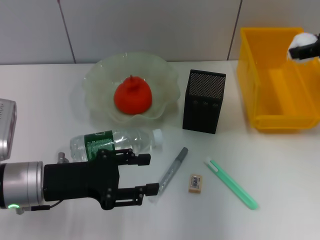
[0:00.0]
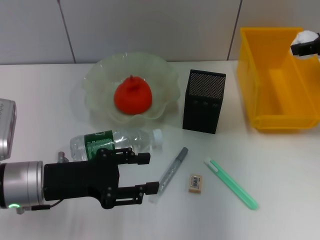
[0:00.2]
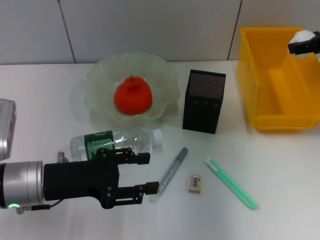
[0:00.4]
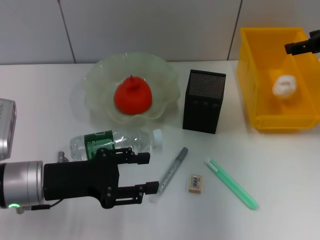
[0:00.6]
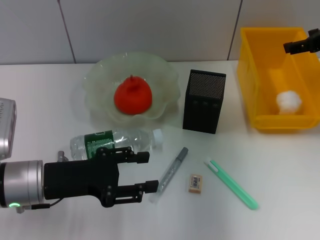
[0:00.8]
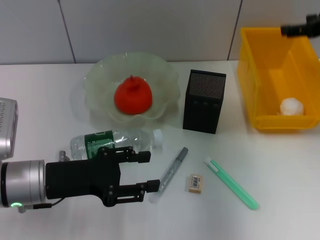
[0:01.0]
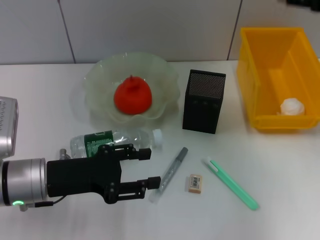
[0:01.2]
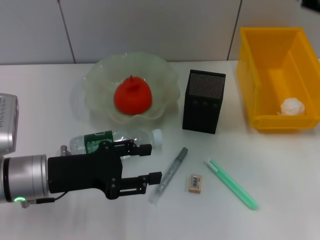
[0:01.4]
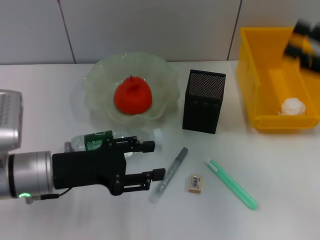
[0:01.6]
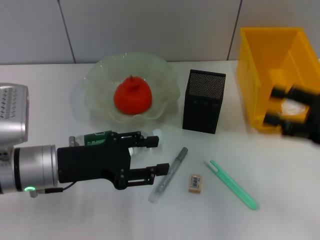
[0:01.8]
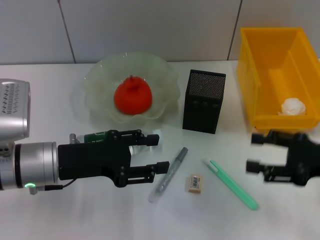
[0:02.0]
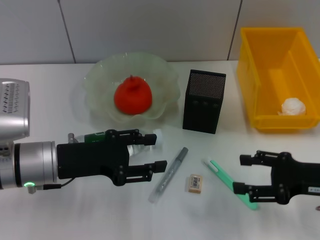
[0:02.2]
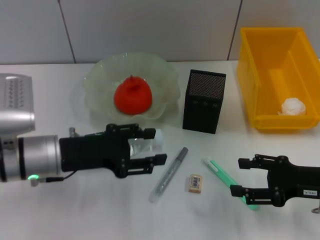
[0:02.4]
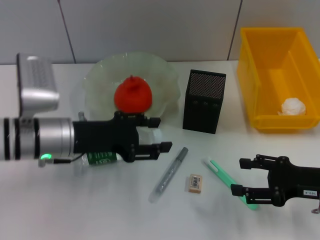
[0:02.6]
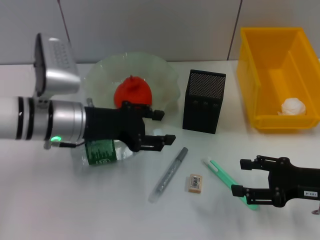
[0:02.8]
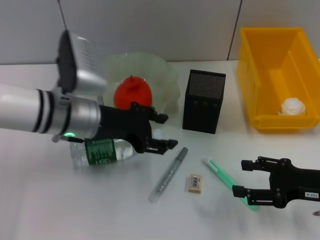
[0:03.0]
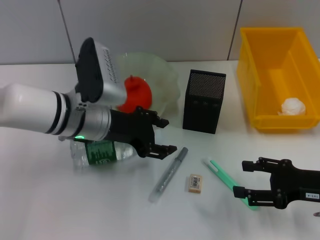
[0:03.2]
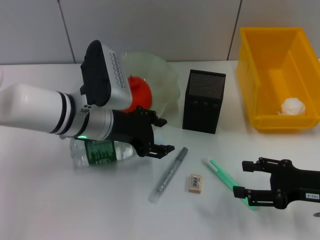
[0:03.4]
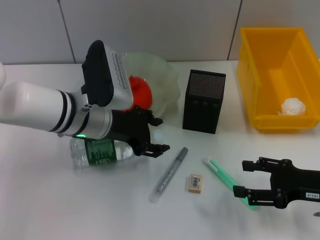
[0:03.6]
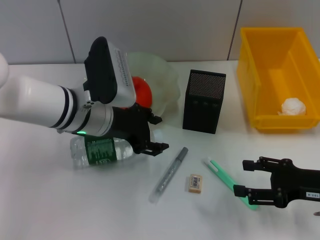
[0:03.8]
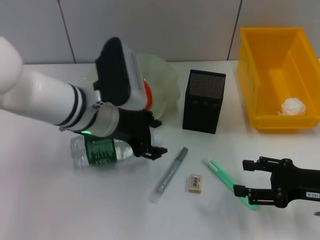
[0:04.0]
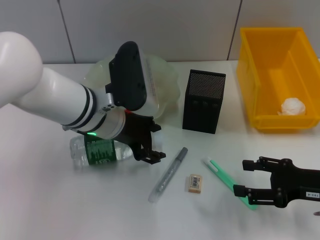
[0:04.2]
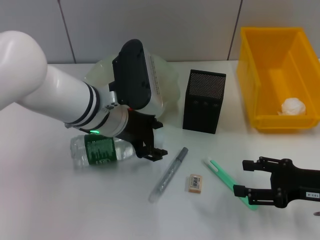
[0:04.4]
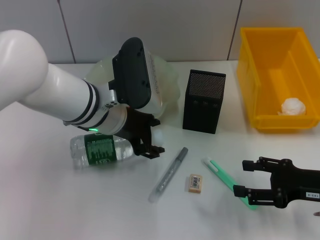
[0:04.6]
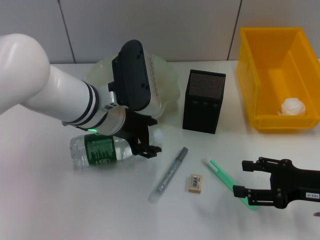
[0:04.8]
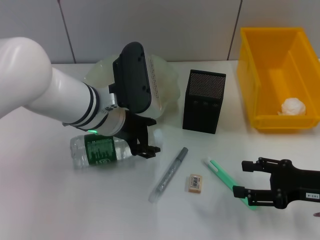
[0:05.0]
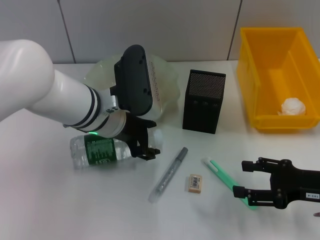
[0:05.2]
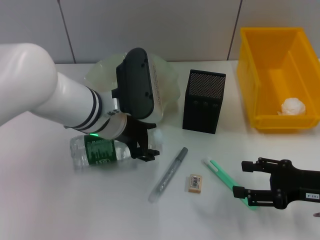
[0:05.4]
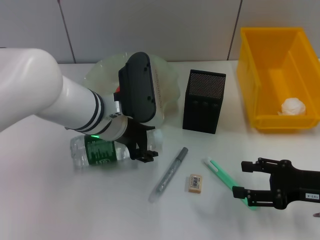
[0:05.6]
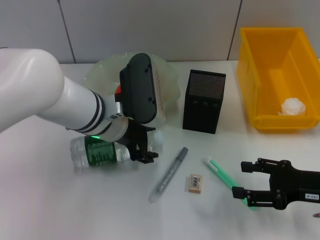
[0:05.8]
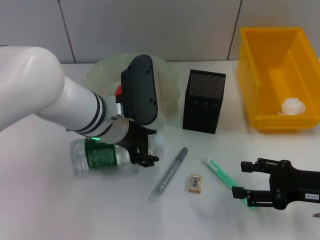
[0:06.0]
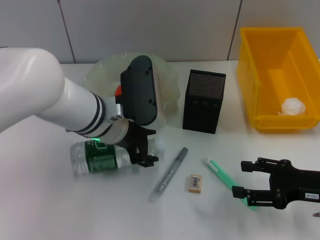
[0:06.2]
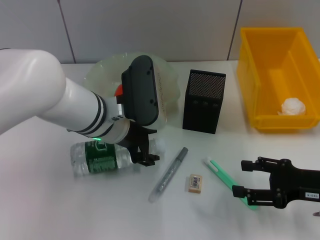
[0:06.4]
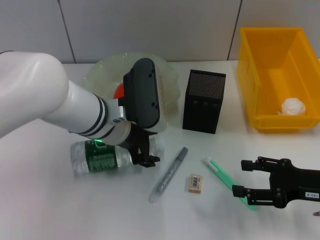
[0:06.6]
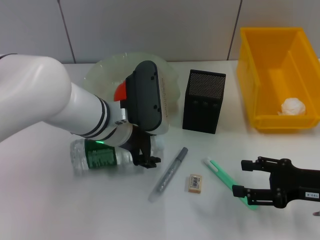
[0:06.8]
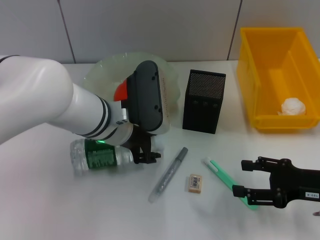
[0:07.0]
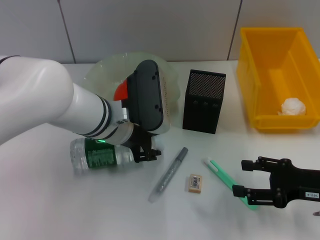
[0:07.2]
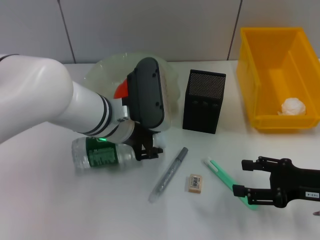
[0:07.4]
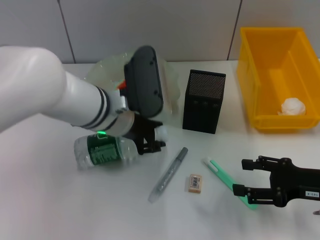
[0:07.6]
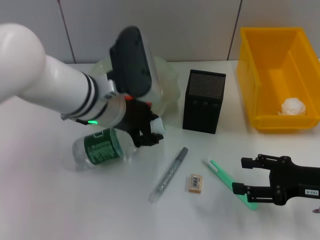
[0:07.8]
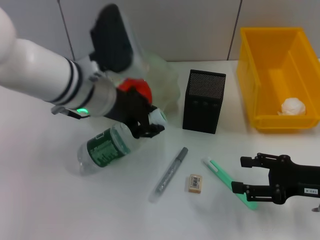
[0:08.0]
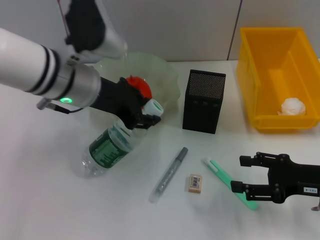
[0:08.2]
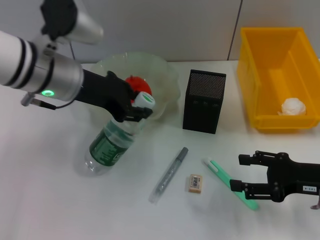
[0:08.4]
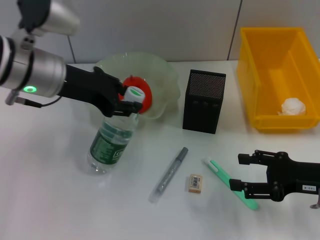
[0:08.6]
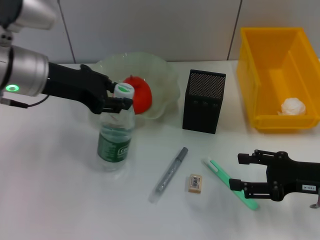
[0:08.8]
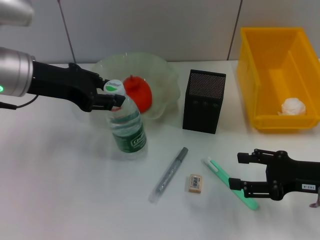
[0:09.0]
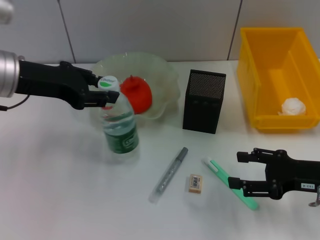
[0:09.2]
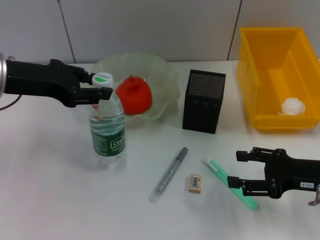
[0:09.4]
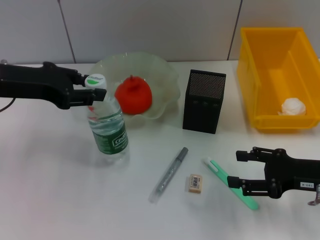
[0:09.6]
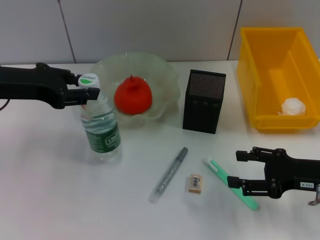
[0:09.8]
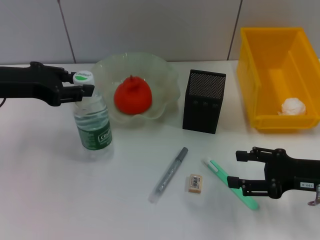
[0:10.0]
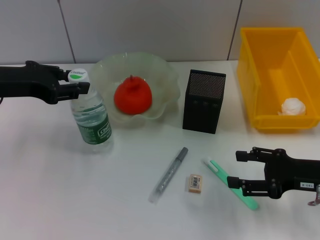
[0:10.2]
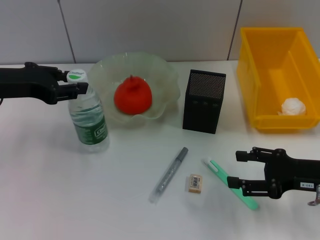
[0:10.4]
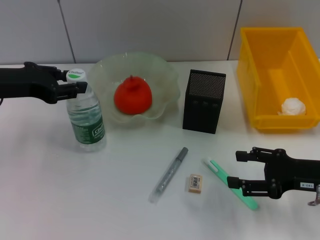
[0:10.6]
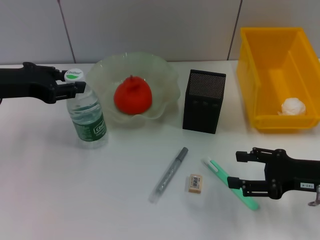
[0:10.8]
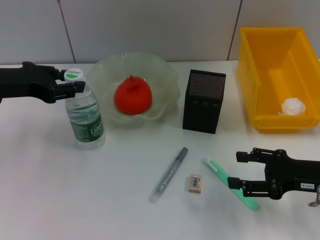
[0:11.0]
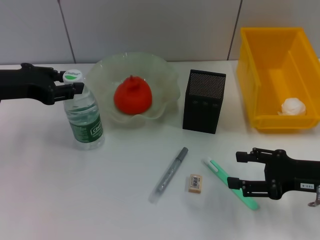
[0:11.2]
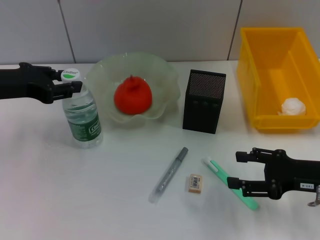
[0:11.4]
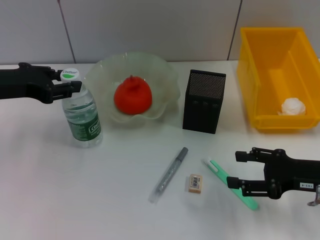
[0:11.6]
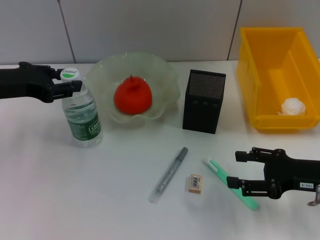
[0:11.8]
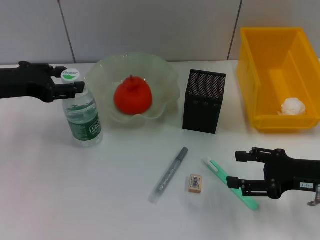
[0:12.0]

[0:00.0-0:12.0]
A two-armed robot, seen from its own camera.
Step, 0:01.0 to 0:07.0: Grab the water bottle with the left hand.
0:00.0 to 0:01.6: The right gripper shifts roughly 15 cm backward and downward.
0:01.6 to 0:03.0: The left gripper is displaced forward and to the right by some 10 cm. Meanwhile the right gripper goes about 10 cm downward.
0:03.0 to 0:04.4: The left gripper shifts by roughly 5 cm.
0:04.4 to 0:06.0: The grippers move only a little.
0:06.0 to 0:07.6: Both grippers stay about where they are.
0:07.6 to 0:09.0: The left gripper moves to the left and upward, roughly 15 cm.
0:09.0 to 0:10.4: The left gripper shifts approximately 5 cm to the left.
0:10.4 to 0:12.0: Both grippers stay put.

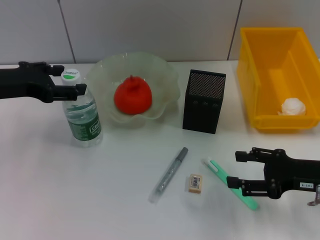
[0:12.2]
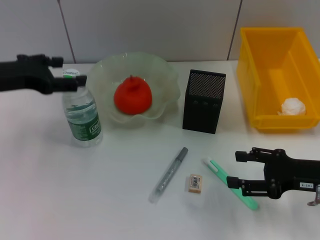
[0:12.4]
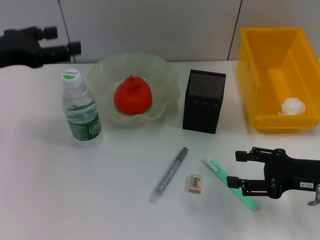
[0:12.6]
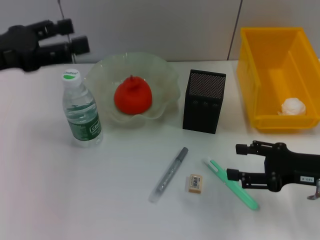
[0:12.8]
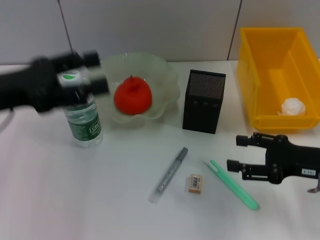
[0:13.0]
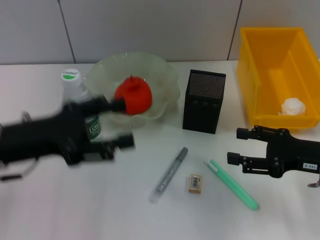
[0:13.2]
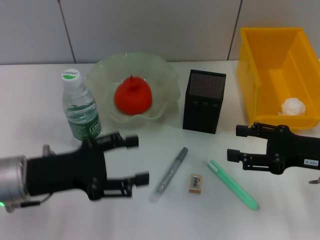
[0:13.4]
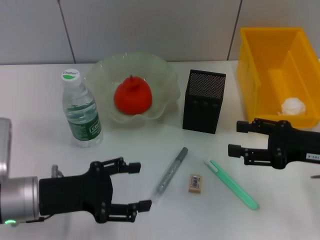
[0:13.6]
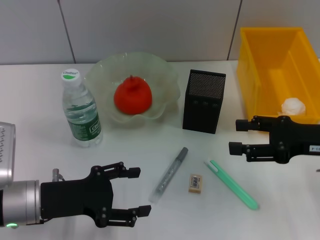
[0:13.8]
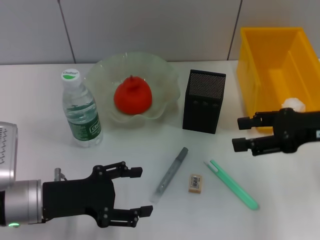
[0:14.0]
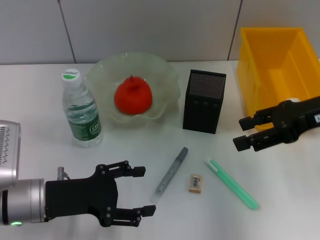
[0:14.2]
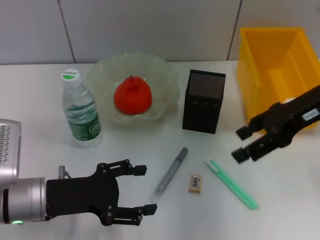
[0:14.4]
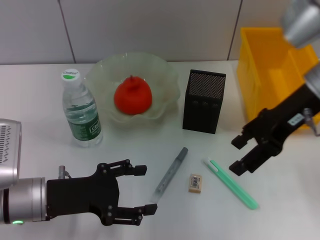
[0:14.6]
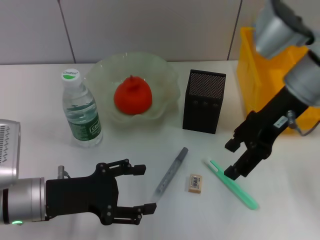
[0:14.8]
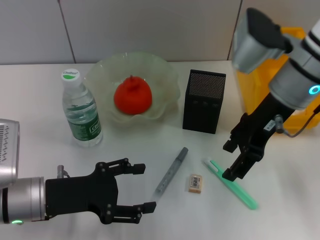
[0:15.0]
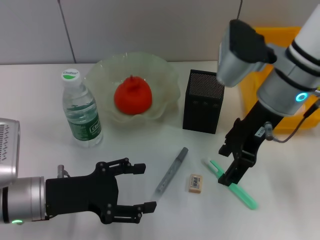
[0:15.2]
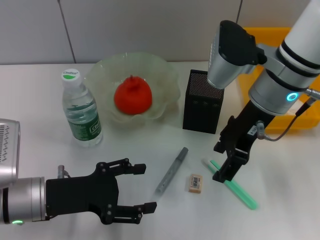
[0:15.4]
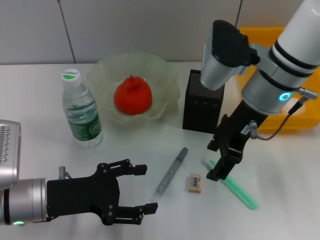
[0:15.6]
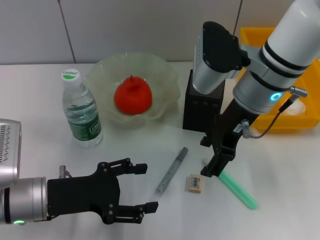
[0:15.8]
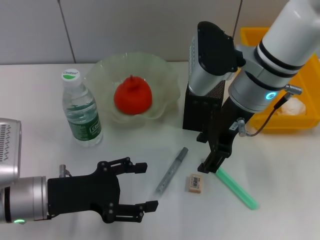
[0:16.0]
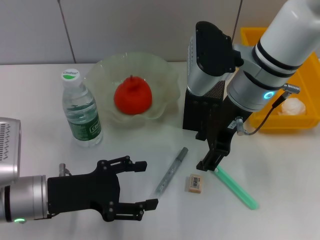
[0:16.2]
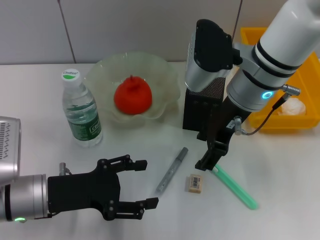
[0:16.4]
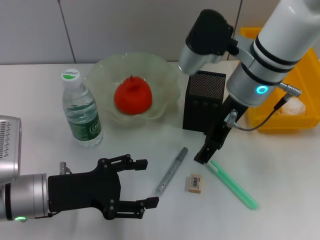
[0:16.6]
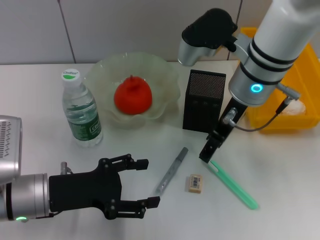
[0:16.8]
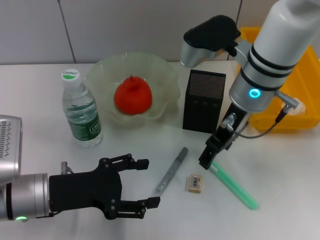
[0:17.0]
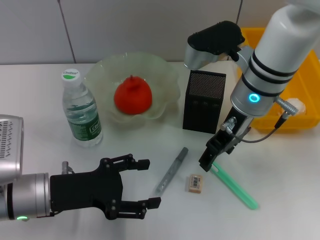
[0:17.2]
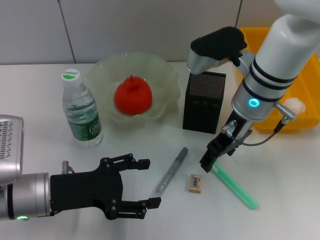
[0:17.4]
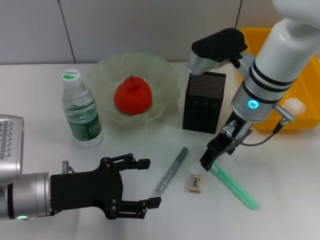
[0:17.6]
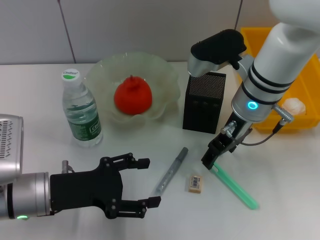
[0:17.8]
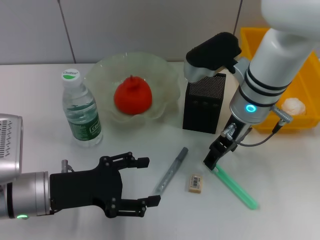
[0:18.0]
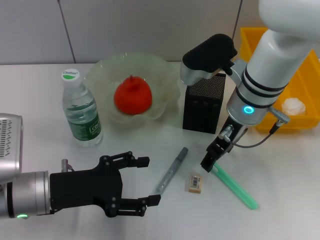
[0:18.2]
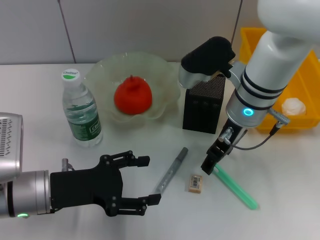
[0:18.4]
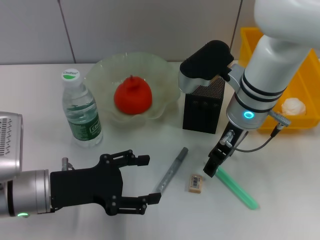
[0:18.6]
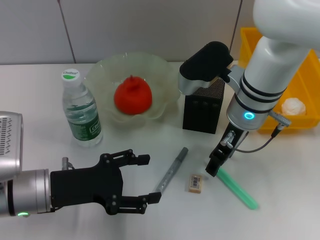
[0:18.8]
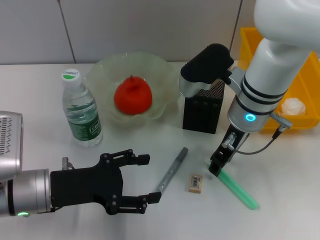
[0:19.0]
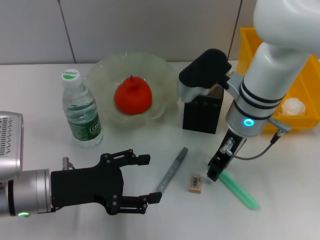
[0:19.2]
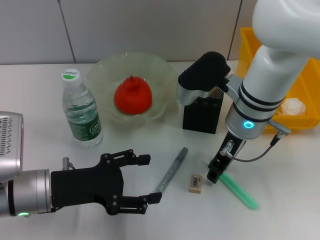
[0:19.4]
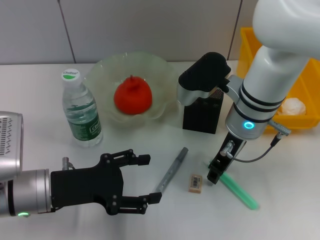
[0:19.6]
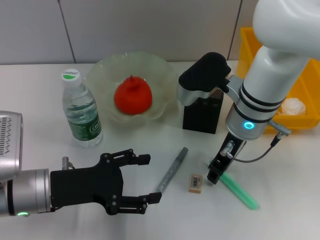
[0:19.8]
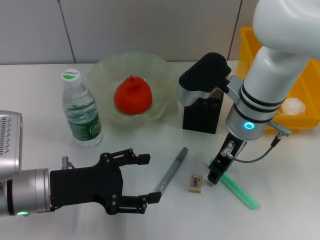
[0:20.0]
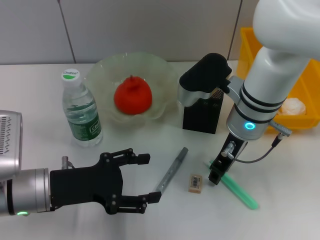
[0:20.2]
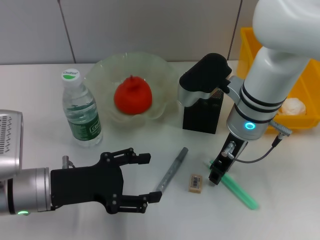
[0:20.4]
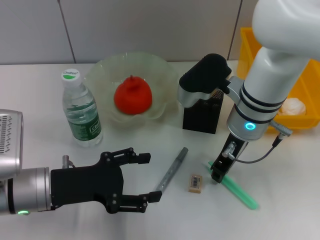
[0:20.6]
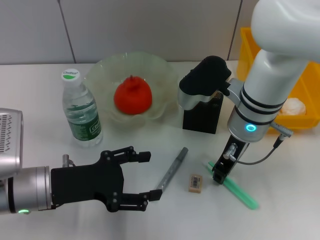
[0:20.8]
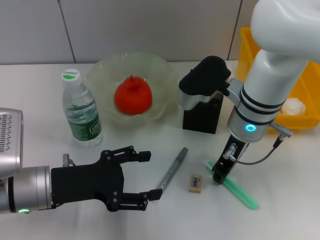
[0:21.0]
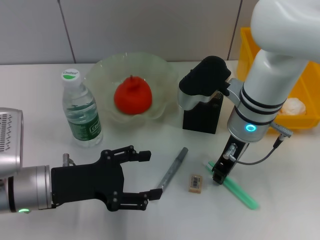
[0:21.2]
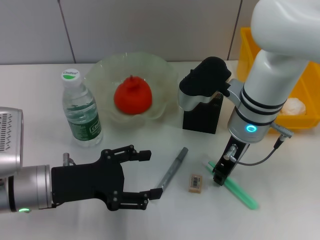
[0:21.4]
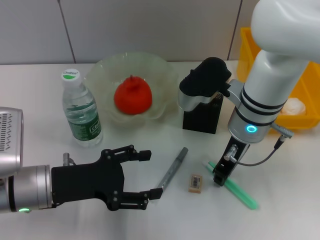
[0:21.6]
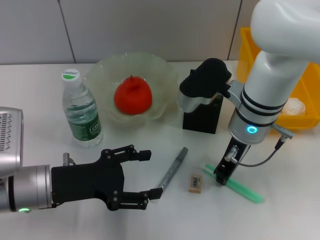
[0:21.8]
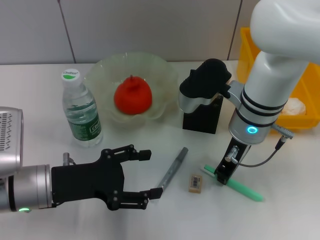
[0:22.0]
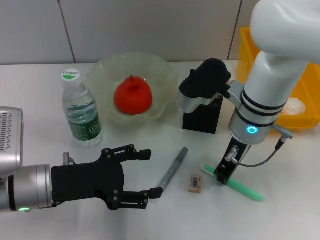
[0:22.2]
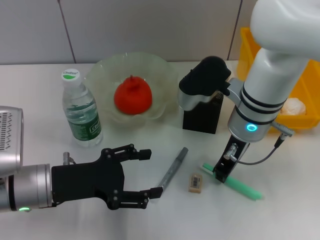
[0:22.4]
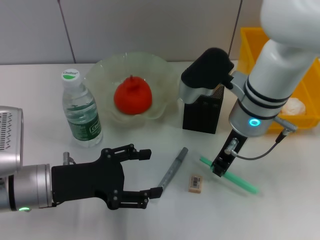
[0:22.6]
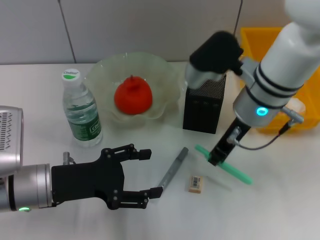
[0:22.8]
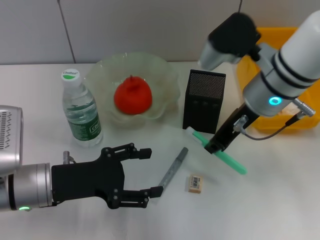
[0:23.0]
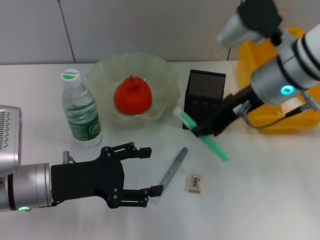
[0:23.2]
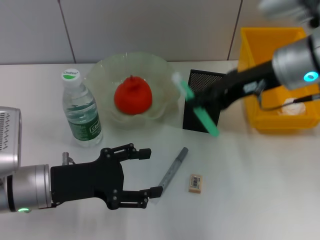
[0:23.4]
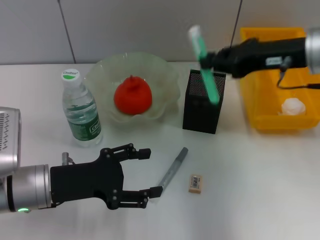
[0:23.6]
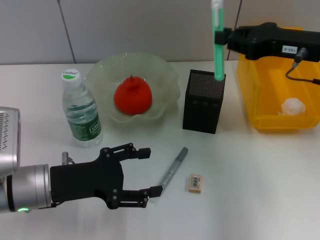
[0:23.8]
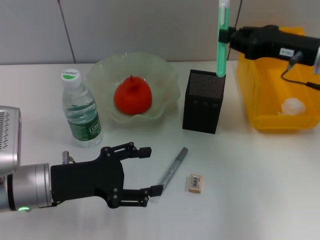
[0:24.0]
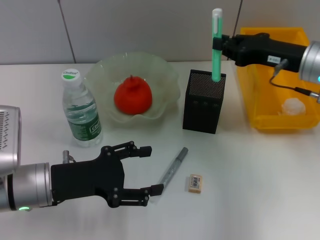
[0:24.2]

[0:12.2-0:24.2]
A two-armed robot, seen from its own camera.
Step, 0:12.6 to 0:21.8: Grab the blue utility knife with the right hand.
0:12.2 to 0:13.8: The right gripper moves upward, about 5 cm, while the left gripper moves downward, backward and to the right, about 15 cm, and opens.
0:13.8 to 0:15.2: The right gripper is displaced to the left, upward and forward by some 15 cm.
0:18.2 to 0:19.8: The right gripper closes up.
0:19.8 to 0:22.6: Neither gripper changes place.
0:22.6 to 0:24.2: The right gripper moves to the right, roughly 15 cm.
